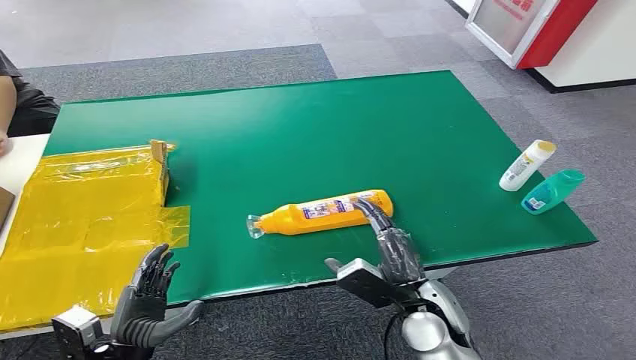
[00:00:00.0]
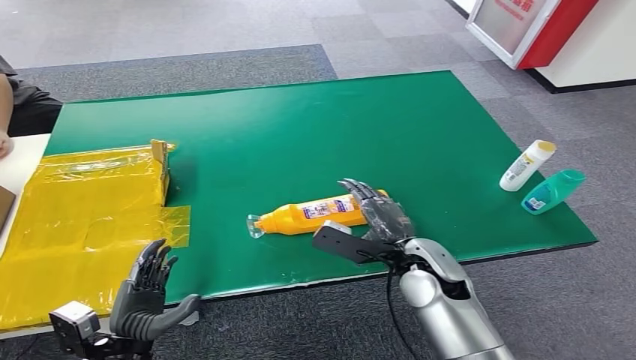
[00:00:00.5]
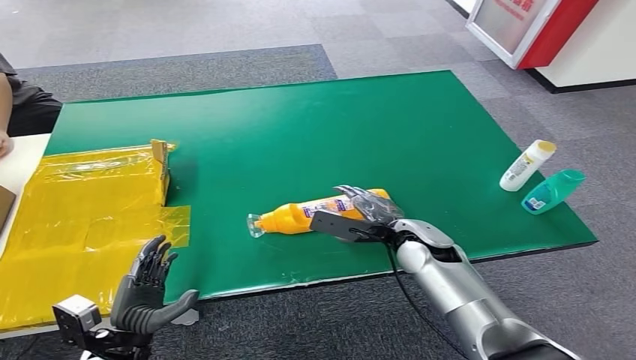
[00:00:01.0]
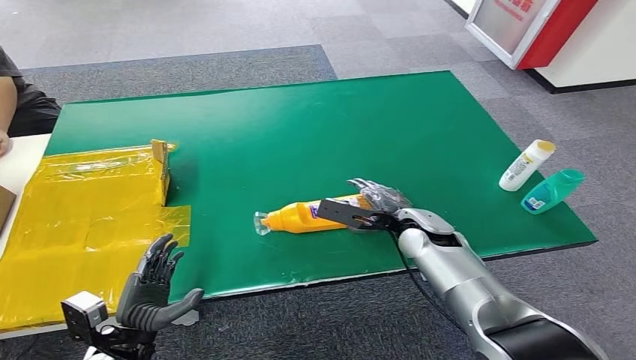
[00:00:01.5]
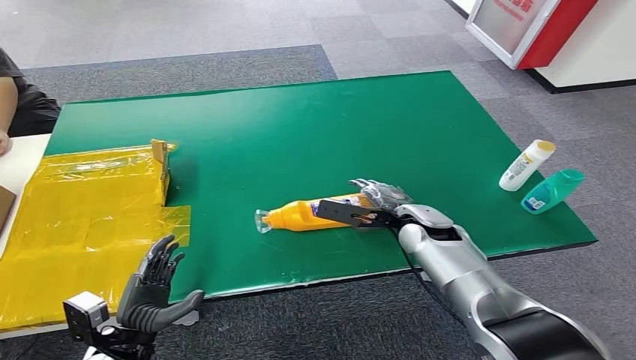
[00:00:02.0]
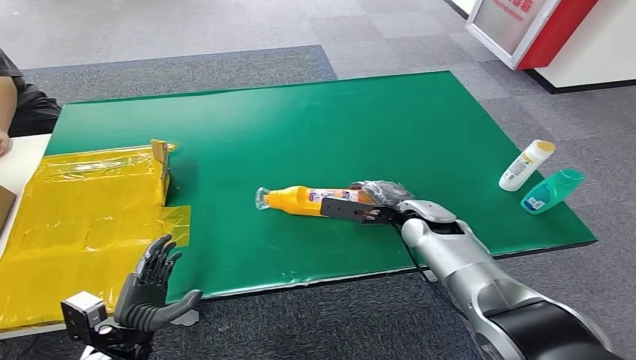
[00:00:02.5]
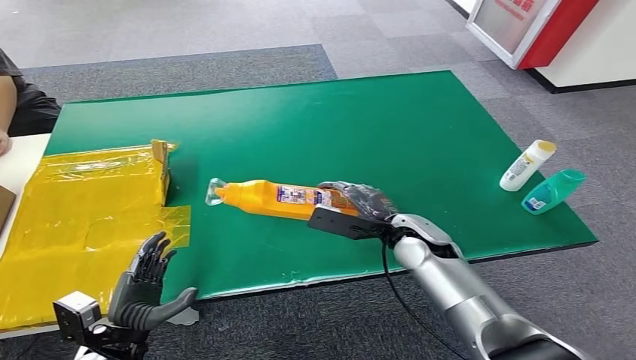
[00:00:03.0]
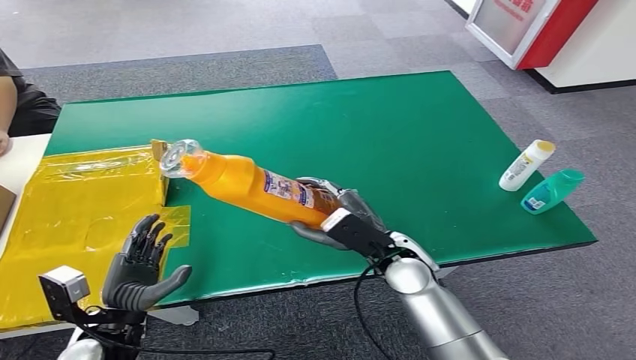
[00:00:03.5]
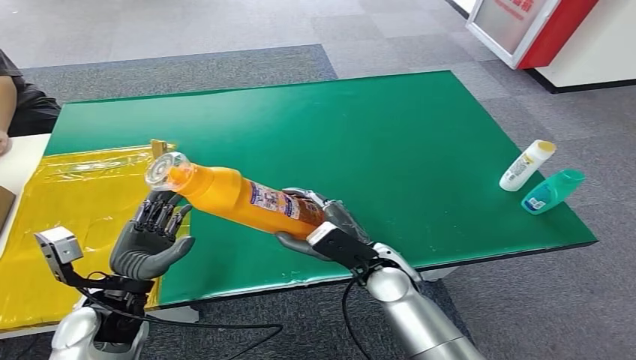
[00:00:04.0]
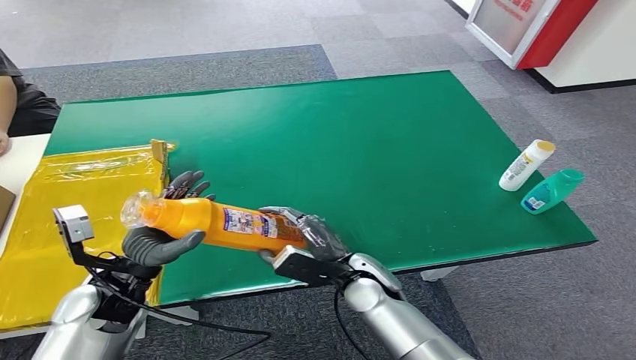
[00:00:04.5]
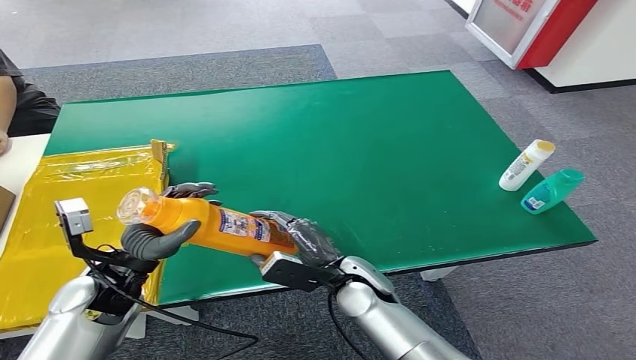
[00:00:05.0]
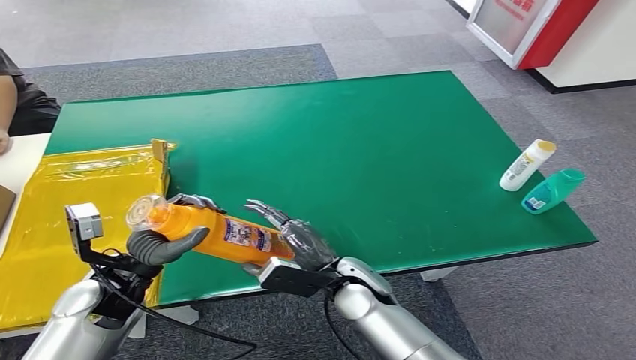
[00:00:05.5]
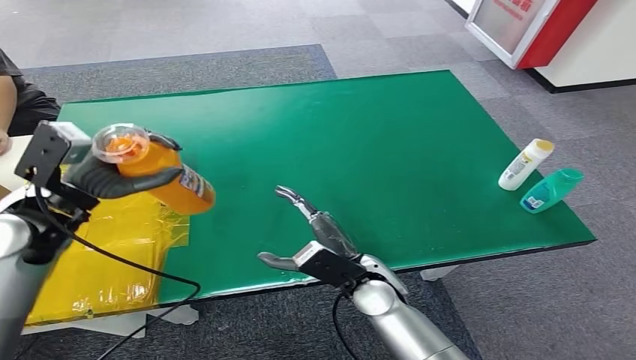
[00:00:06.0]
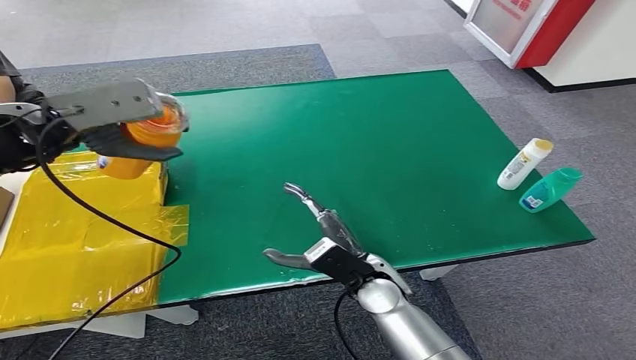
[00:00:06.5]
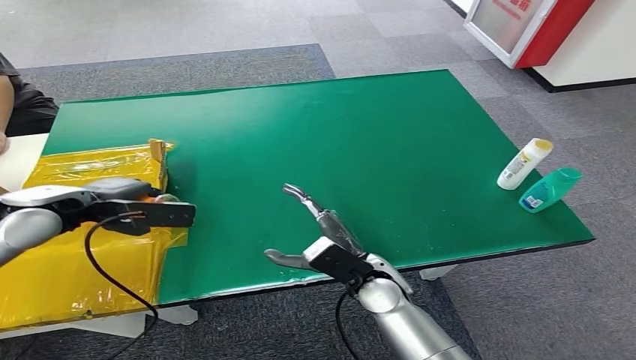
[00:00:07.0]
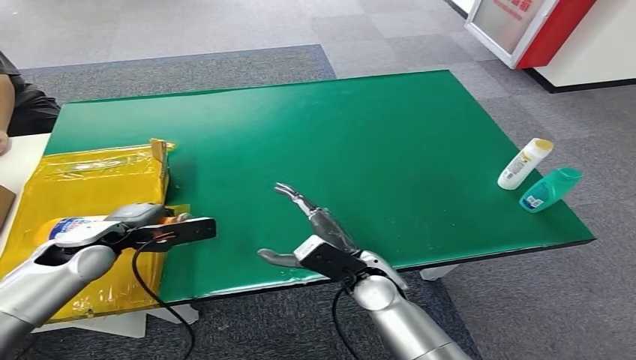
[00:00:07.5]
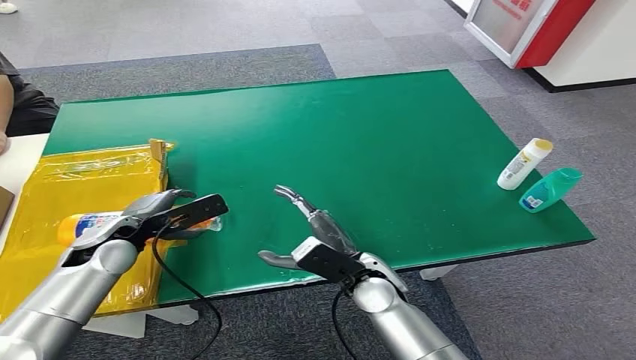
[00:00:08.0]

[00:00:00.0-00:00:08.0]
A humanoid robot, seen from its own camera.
Step, 00:00:00.0 to 00:00:03.5: Pick up the bottle from the table.
Step, 00:00:04.0 to 00:00:08.0: Turn the bottle to the front side.
00:00:02.0 to 00:00:04.0: The left hand goes some 10 cm upward and forward. Meanwhile the right hand shifts some 10 cm backward and to the left.
00:00:06.0 to 00:00:08.0: The left hand goes roughly 10 cm downward.
